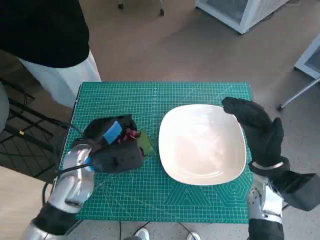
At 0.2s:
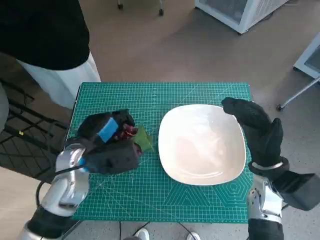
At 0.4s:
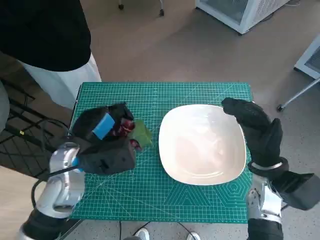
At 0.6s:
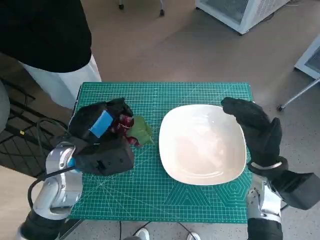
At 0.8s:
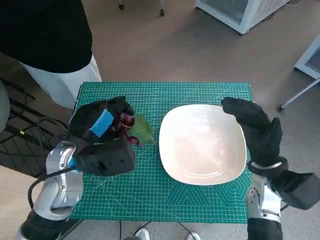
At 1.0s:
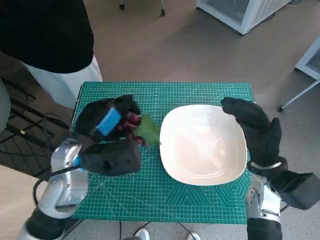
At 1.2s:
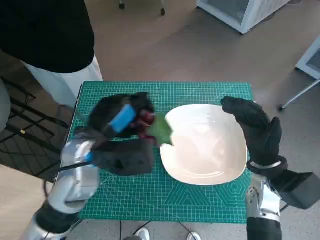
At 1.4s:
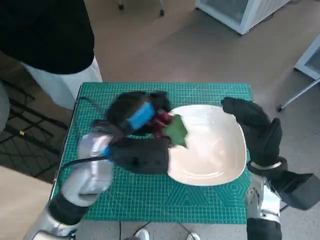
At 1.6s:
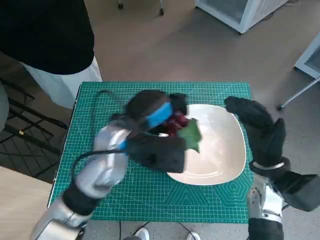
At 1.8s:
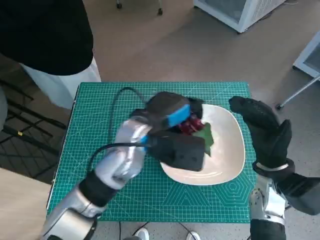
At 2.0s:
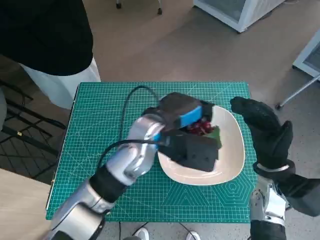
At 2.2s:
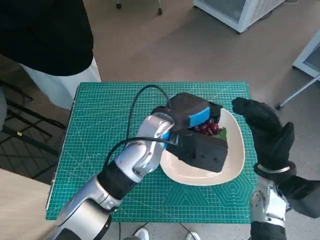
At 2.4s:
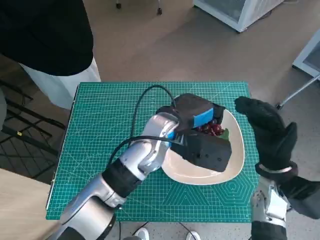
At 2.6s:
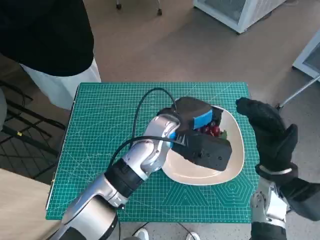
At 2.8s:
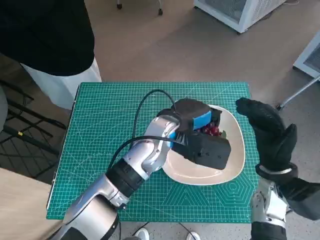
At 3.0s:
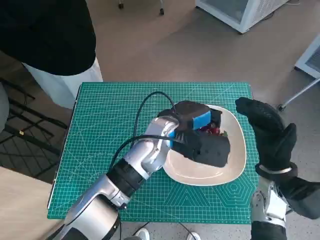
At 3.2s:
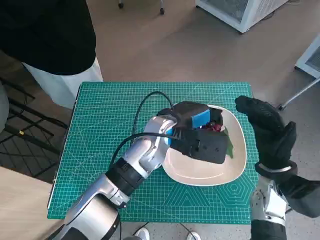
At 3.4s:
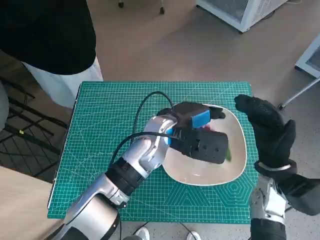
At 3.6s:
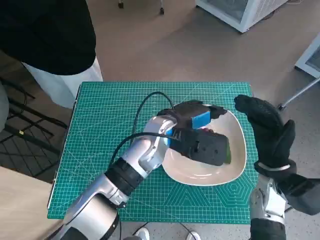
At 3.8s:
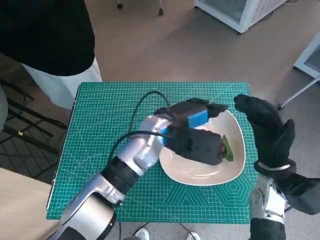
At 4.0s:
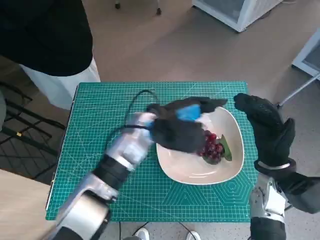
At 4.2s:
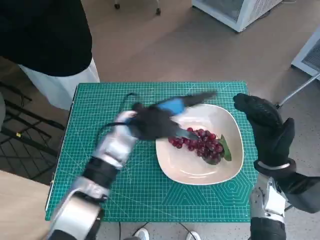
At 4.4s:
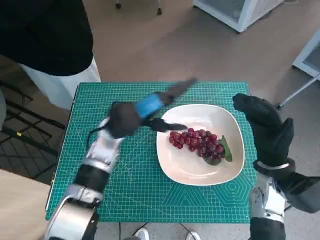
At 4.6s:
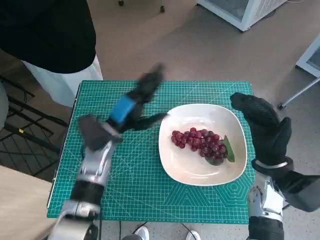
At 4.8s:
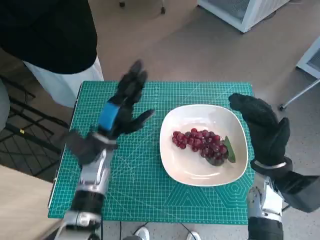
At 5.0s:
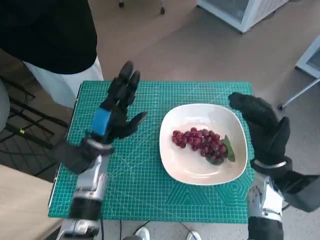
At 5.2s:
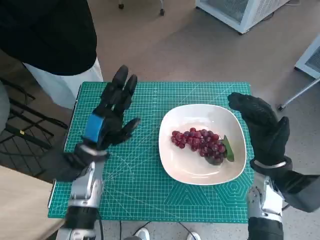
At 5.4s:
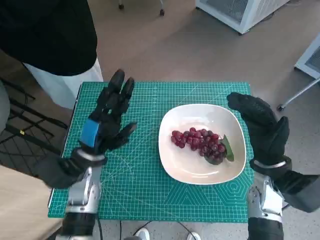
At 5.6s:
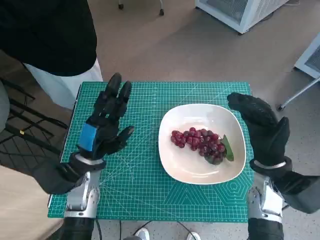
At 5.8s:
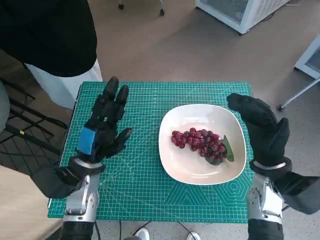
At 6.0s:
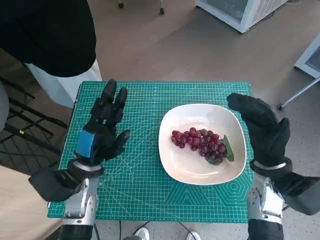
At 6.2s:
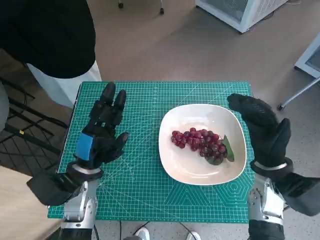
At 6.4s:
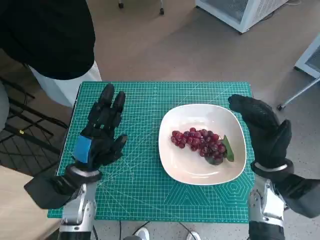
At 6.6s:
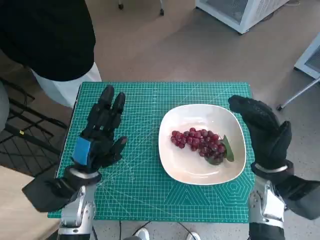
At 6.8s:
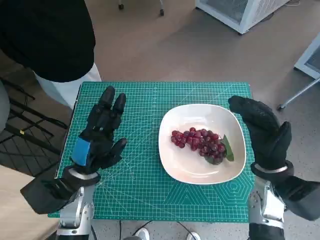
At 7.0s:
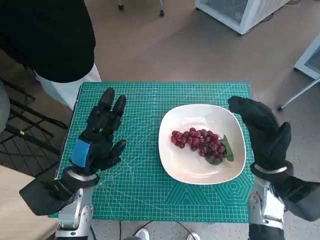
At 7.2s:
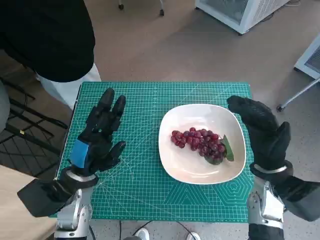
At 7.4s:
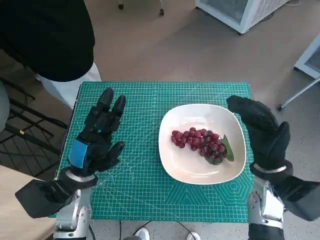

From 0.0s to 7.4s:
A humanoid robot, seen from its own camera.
Task of the whole recording: Pick up the grapes and put them on the plate.
Step, from 0.0s to 3.6s: Place the grapes in the plate with left hand.
From 0.0s to 1.4s: The left hand travels upward and to the right by about 10 cm.
From 1.4s to 3.0s: The left hand heads to the right and forward, covering roughly 10 cm.
From 3.0s to 4.4s: The left hand moves to the left, about 10 cm.
From 4.4s to 6.0s: The left hand moves backward, to the left and downward, approximately 10 cm.
From 6.0s to 7.4s: The hands stay close to where they were, moving slightly.

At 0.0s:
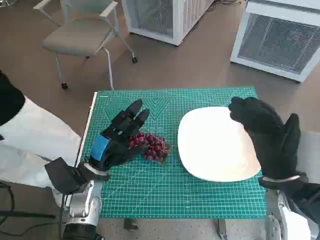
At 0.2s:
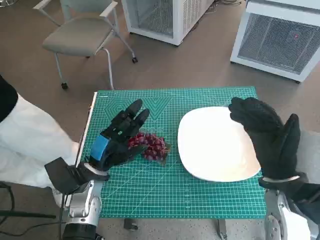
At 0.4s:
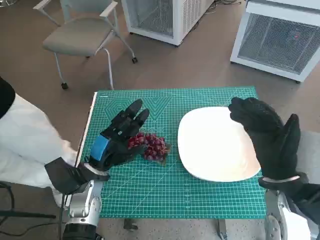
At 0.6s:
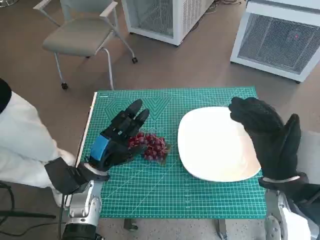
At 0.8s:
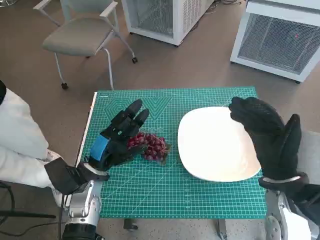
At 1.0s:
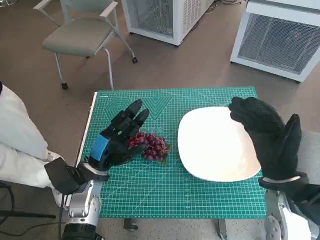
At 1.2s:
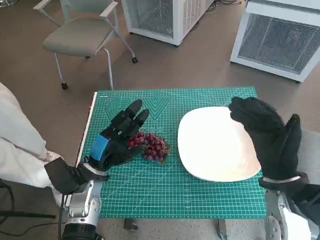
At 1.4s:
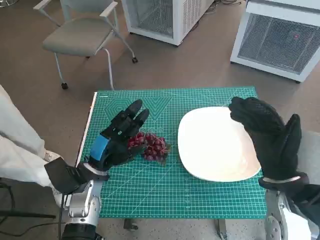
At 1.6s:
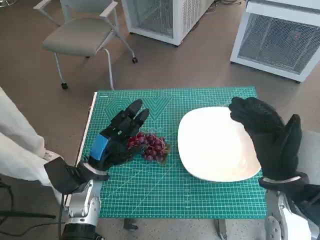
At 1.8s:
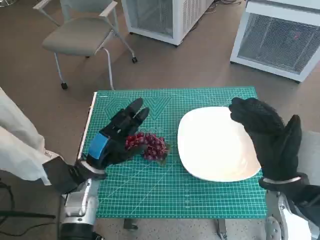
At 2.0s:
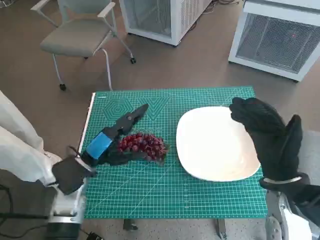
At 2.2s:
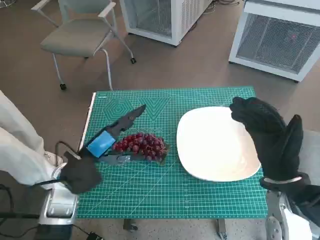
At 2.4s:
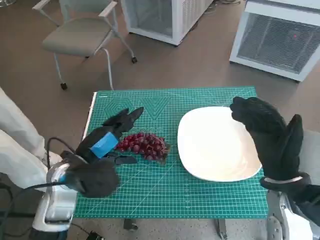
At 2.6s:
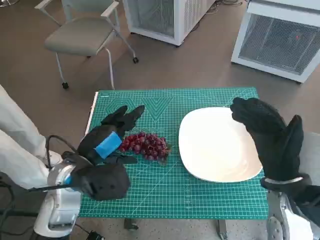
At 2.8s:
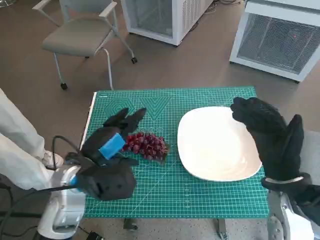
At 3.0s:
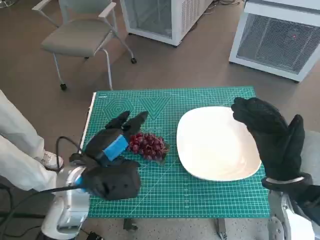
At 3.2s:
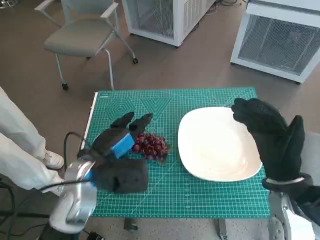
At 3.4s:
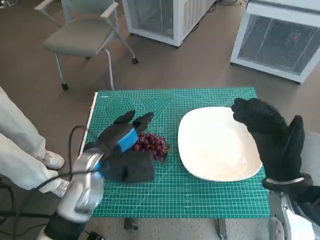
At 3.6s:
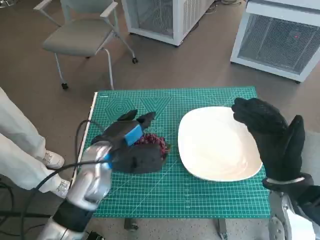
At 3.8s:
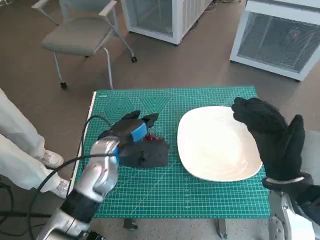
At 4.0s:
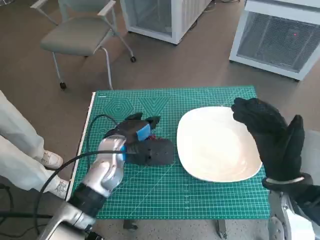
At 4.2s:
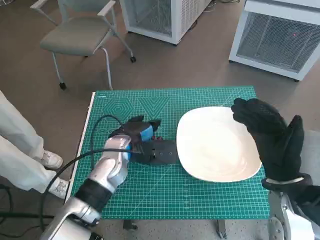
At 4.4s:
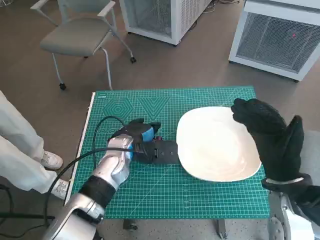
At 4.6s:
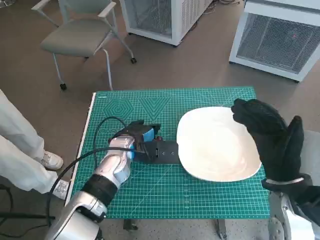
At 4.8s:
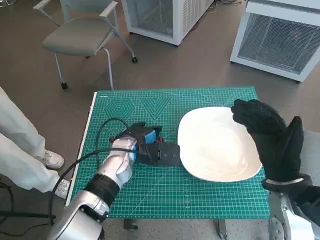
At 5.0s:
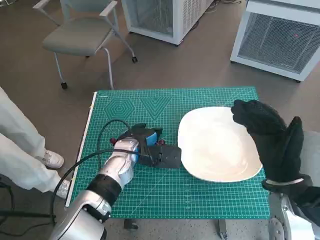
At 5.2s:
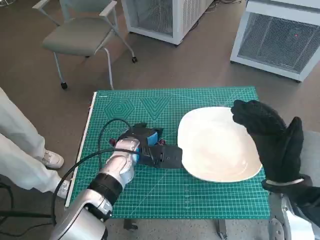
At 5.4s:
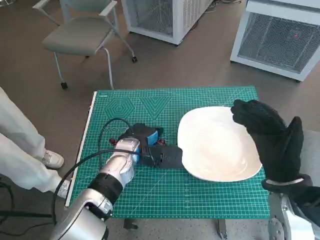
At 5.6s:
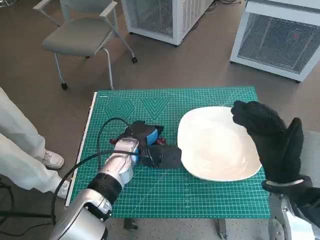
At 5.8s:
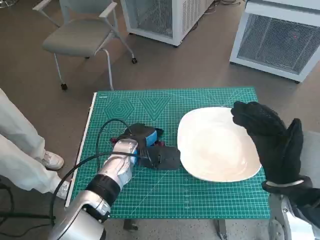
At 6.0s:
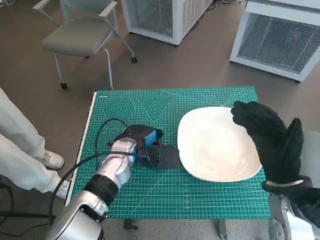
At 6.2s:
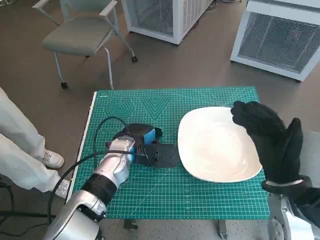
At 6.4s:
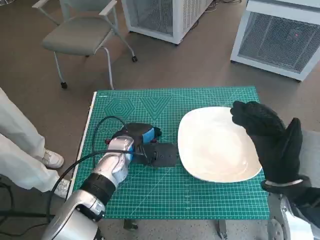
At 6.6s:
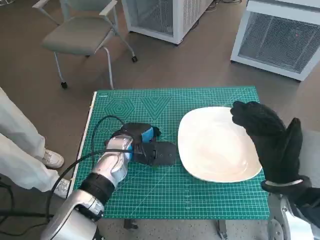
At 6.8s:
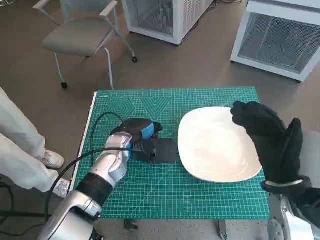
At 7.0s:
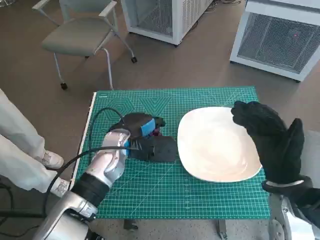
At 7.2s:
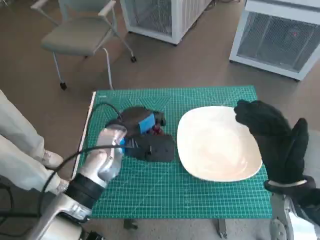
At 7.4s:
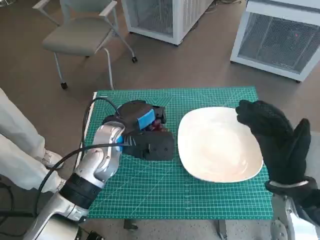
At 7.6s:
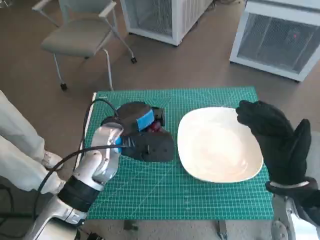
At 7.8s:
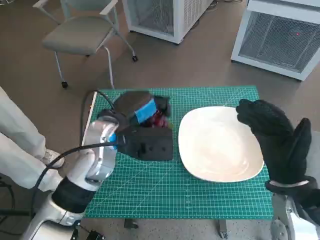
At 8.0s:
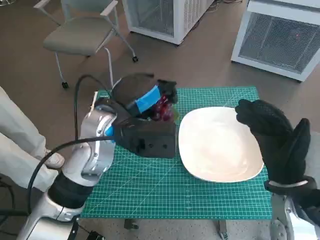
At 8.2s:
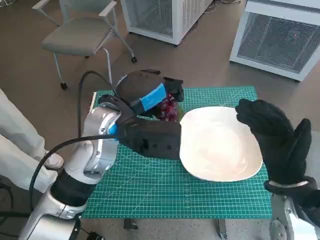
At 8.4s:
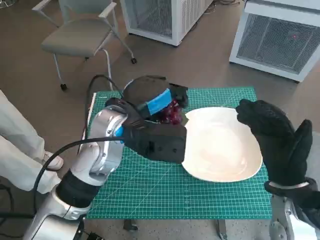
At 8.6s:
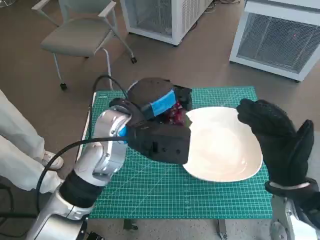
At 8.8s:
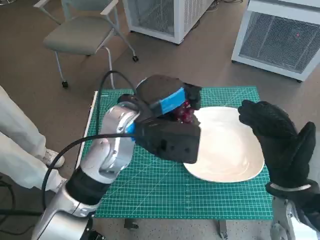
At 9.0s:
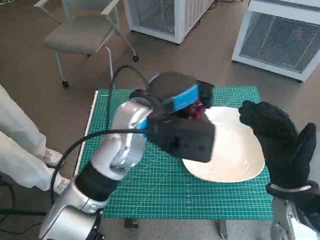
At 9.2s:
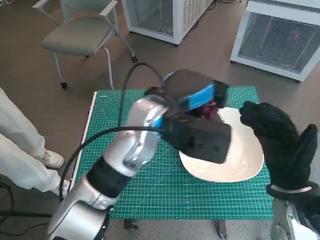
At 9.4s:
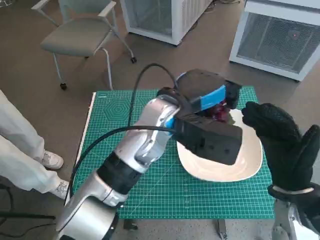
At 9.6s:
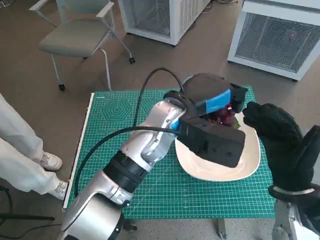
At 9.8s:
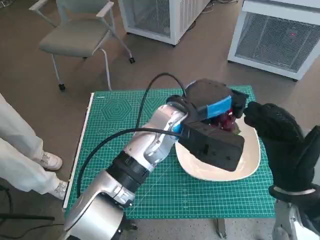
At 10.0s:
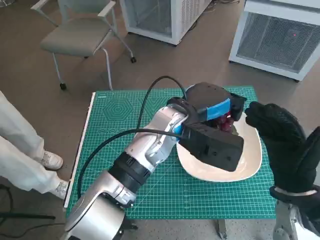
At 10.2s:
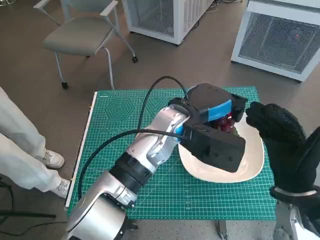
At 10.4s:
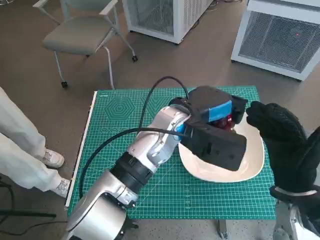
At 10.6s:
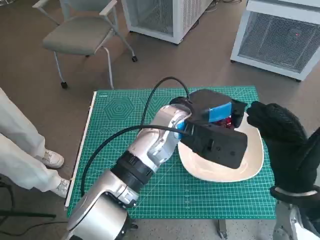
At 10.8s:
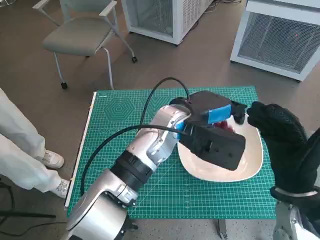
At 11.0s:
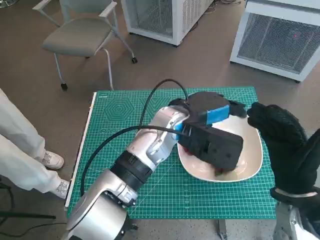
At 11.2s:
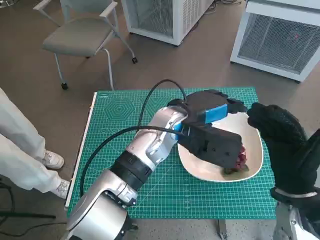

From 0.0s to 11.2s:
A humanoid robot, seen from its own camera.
Task of the whole recording: Pick up the grapes and put them on the plate.
Step, from 0.0s to 6.0s: Grasp the grapes with left hand.
Step, from 6.2s to 10.8s: Place the grapes in the plate with left hand.
From 1.6s to 3.2s: The left hand goes approximately 5 cm upward.
From 3.2s to 4.8s: The left hand shifts about 10 cm forward and to the right.
From 4.8s to 6.4s: The hands make only small movements.
From 6.4s to 8.0s: The left hand shifts about 15 cm upward.
From 8.0s to 9.6s: The left hand heads to the right, covering about 10 cm.

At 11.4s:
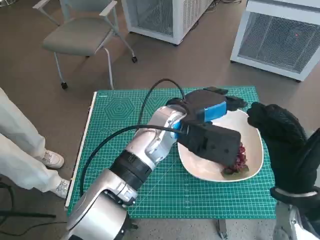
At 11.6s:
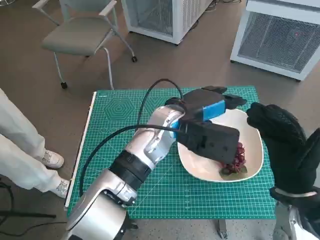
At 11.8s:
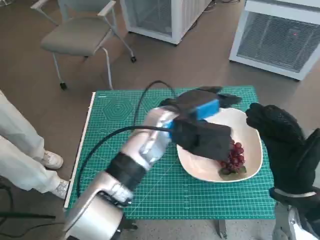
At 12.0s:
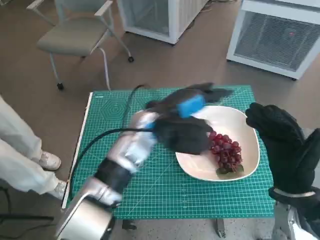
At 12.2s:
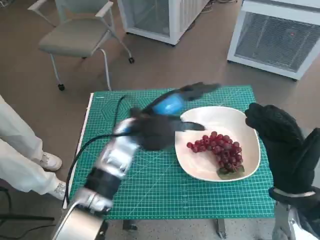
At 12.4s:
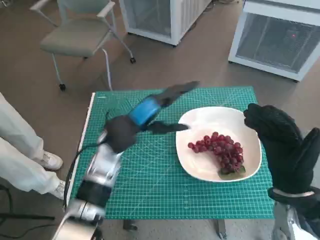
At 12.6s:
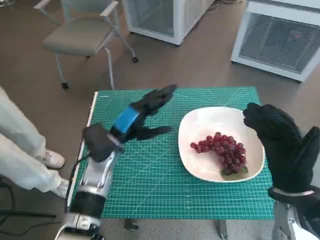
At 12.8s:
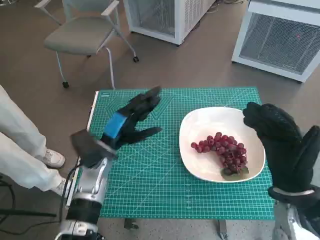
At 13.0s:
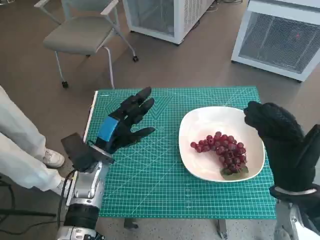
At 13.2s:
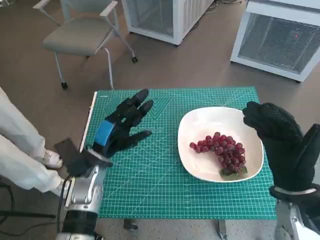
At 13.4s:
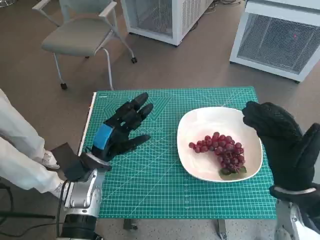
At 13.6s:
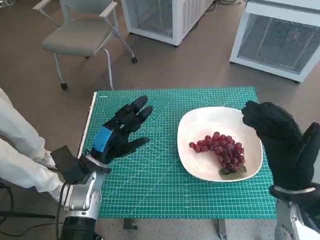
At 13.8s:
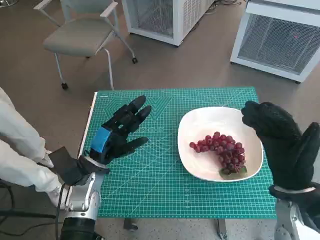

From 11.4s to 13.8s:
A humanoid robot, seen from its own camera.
Task of the whole recording: Pick up the grapes and put them on the plate.
From 11.4s to 12.6s: The left hand is displaced to the left and downward by about 15 cm.
From 12.6s to 13.8s: The left hand ends up roughly 5 cm from where it was.

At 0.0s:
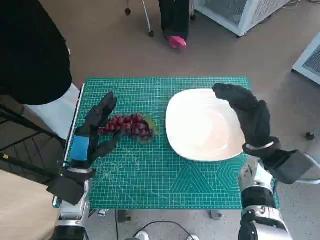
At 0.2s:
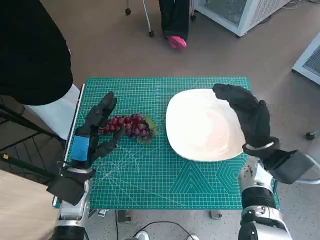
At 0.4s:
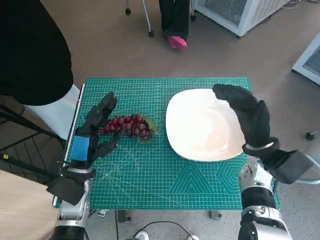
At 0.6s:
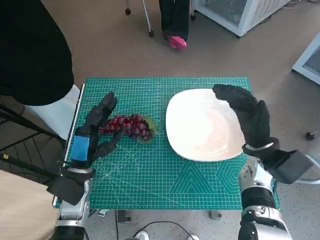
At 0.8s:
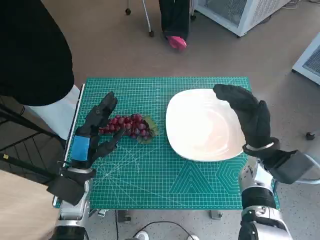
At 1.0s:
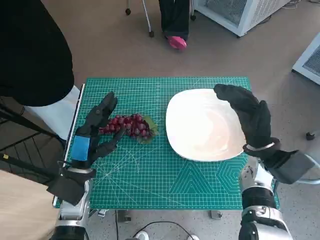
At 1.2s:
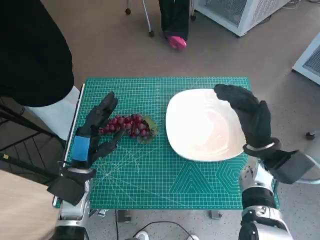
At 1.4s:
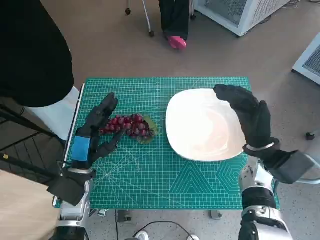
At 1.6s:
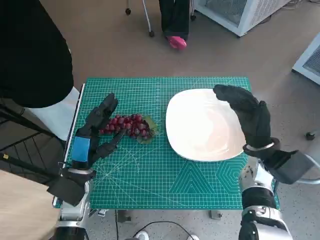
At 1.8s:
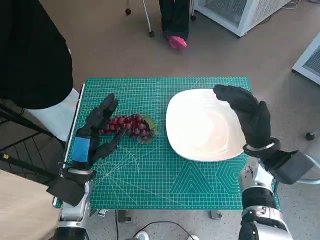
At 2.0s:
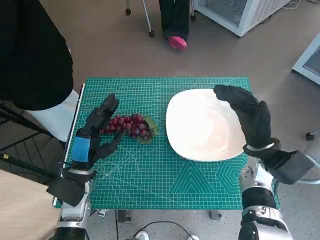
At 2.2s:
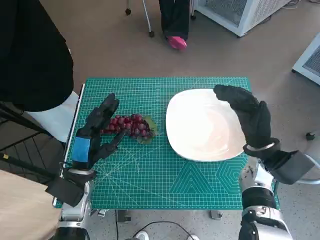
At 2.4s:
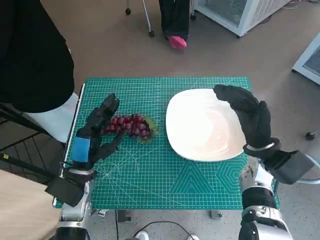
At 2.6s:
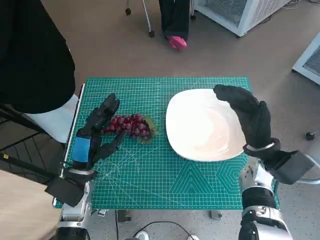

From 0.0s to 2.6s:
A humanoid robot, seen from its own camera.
Task of the whole recording: Pick up the grapes and put them on the plate.
From 1.2s to 2.6s: The two hands keep their place.
